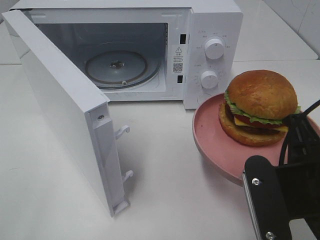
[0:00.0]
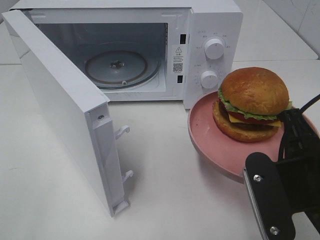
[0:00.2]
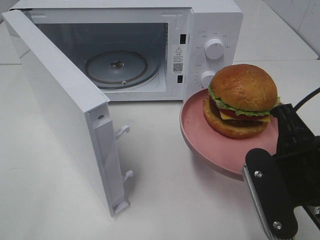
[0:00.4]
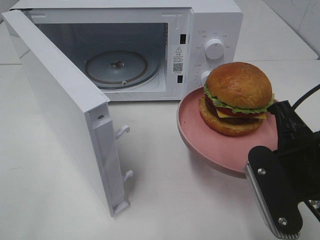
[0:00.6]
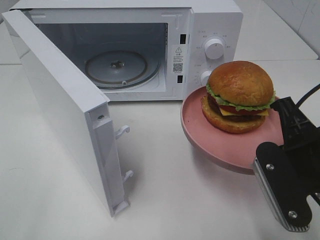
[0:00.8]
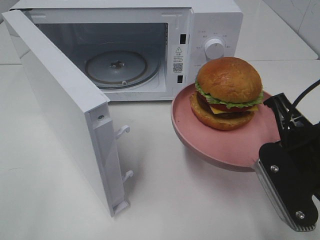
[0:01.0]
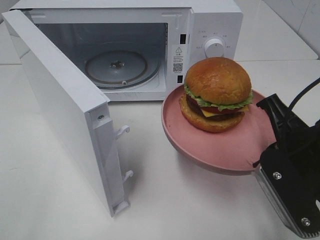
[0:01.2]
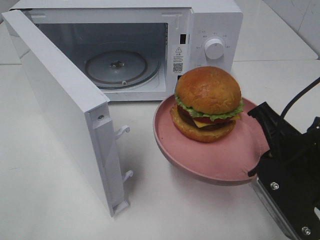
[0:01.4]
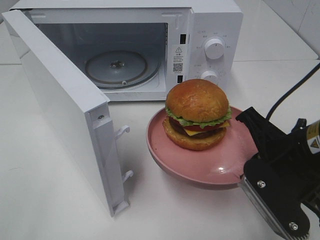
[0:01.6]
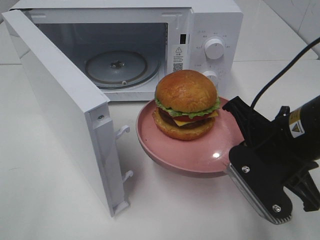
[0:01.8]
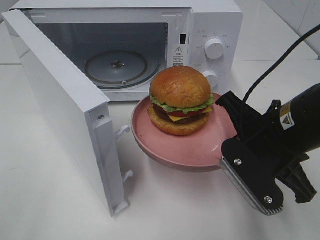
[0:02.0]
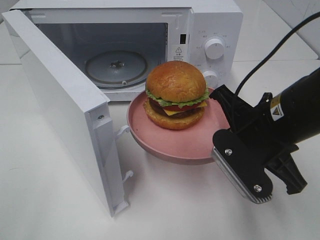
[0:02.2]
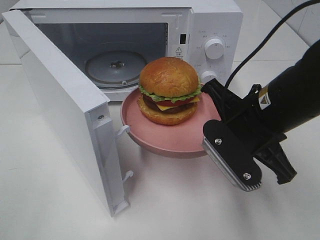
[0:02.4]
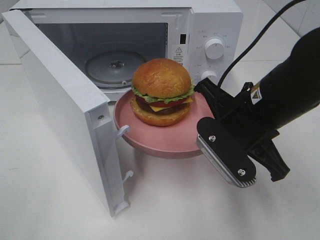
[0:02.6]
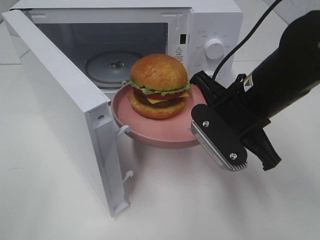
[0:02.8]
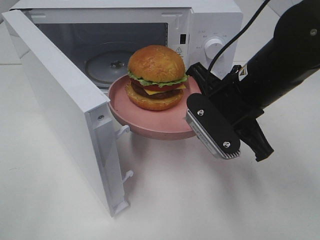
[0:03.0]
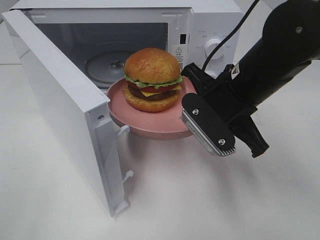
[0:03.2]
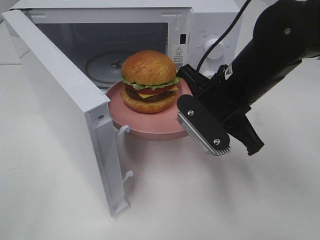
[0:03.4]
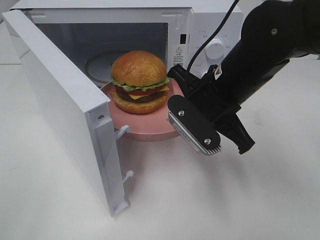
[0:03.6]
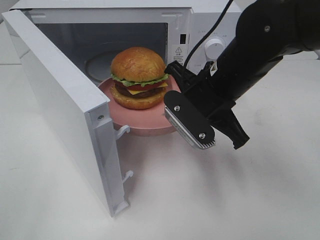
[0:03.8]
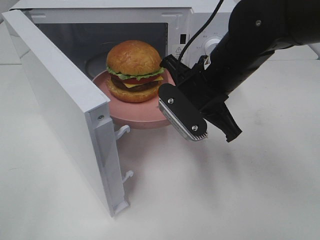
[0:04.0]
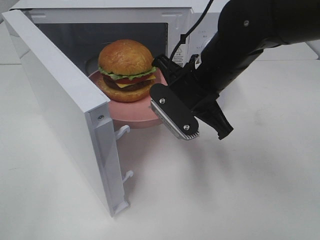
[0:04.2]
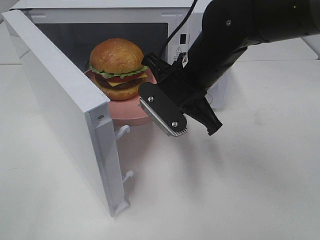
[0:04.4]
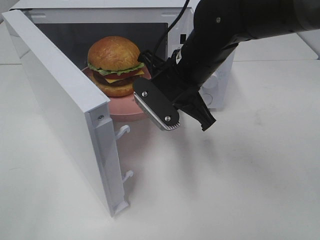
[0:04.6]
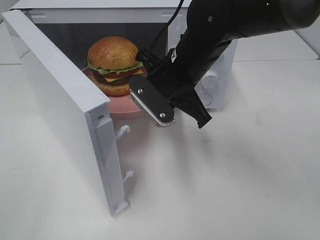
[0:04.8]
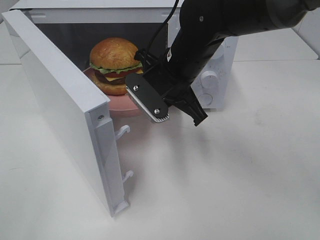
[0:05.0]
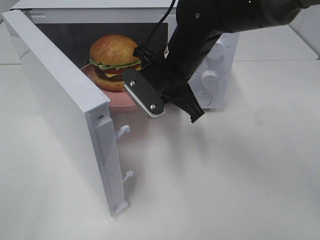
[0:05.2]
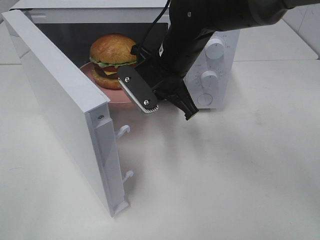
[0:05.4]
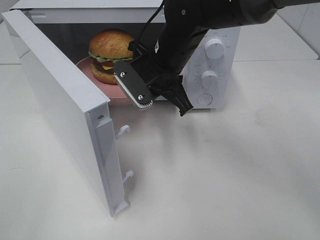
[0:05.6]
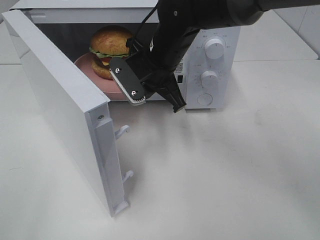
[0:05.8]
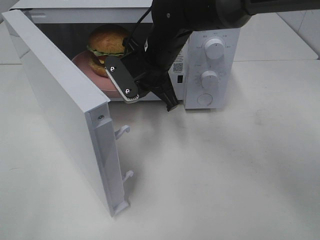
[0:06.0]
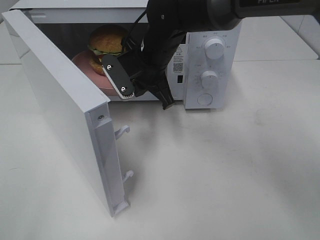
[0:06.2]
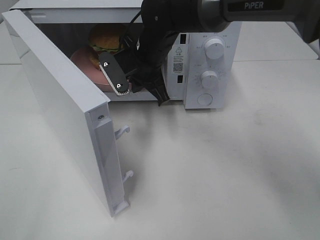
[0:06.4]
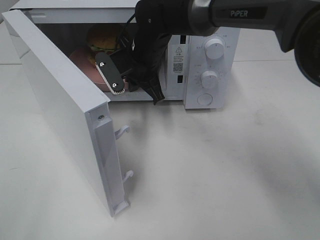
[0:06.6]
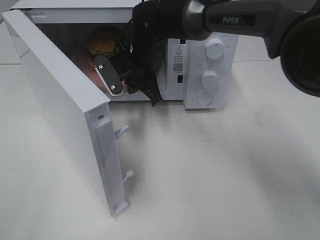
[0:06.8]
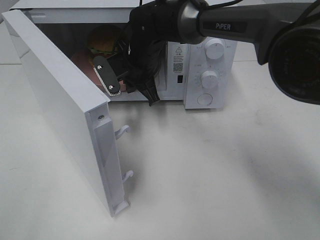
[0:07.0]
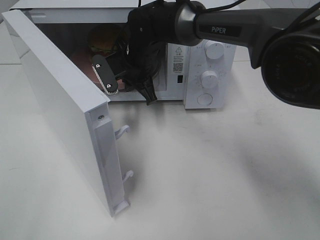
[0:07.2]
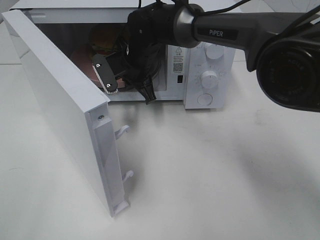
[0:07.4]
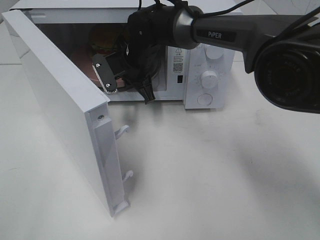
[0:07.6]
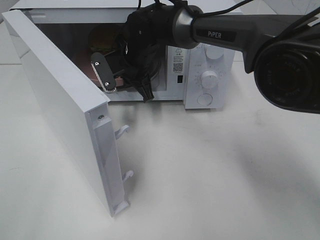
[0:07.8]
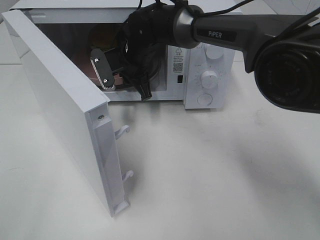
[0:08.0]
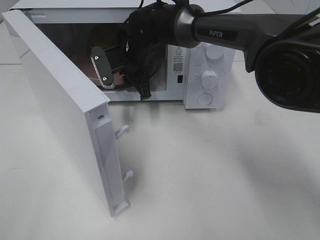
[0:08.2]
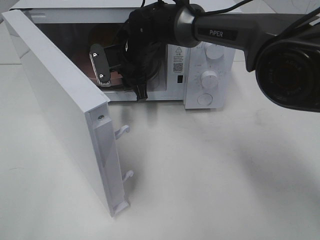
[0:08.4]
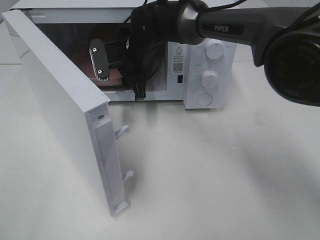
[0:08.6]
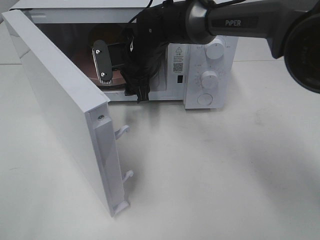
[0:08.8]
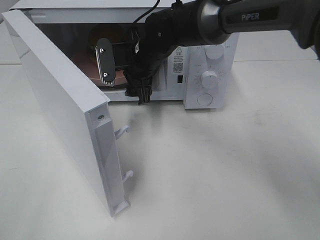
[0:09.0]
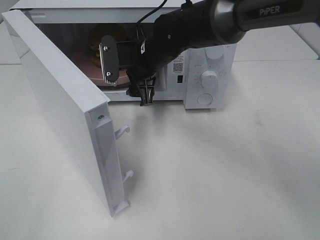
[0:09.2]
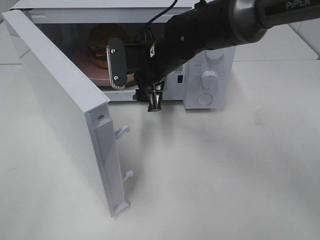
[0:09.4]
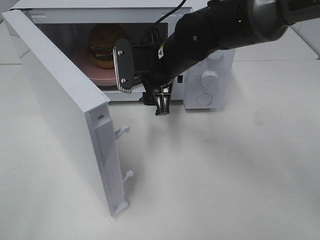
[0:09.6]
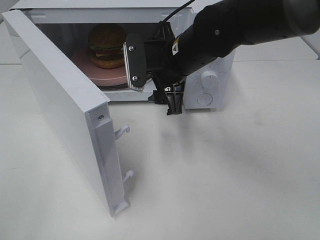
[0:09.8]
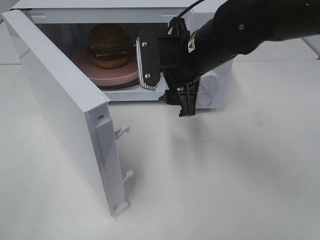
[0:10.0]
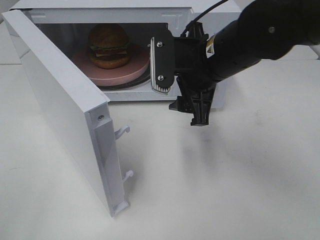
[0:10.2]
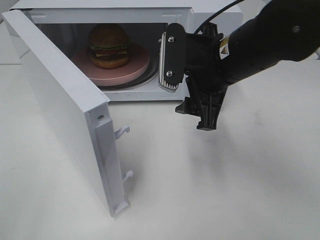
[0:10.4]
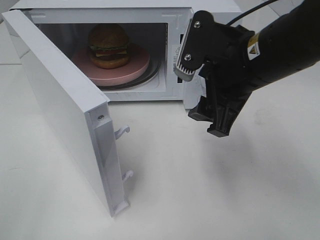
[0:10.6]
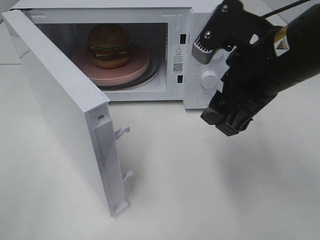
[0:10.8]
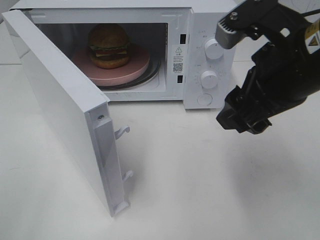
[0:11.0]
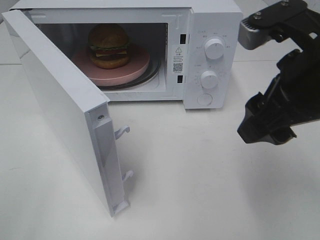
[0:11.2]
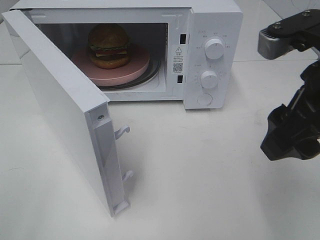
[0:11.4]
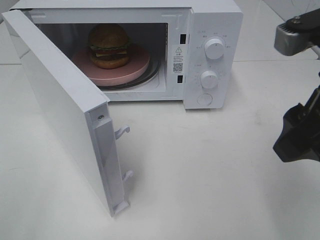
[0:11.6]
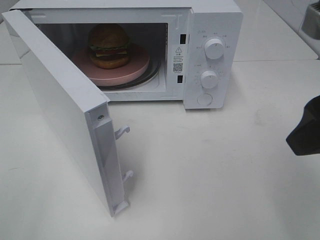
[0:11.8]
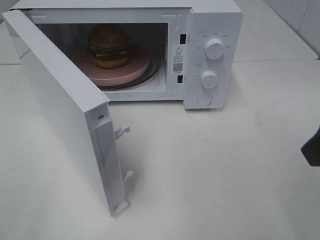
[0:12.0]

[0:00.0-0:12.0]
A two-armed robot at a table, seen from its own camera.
Task of the whole recording: Heat the burger.
Step, 0:00.0 to 0:08.8: Right hand: place the plate in the microwave.
0:00.0 to 0:01.6: The right gripper moves forward, roughly 5 cm.
0:01.6 to 0:03.0: The right gripper moves forward and to the left, some 10 cm.
0:03.0 to 0:04.4: The right gripper goes about 5 cm to the left.
0:04.4 to 0:06.0: The right gripper goes some 10 cm forward and to the left.
0:06.0 to 0:07.6: The right gripper heads forward, covering about 5 cm.
0:07.6 to 0:09.0: The right gripper opens.
0:09.0 to 0:10.4: The right gripper shifts approximately 20 cm backward, to the right and upward.
0:10.4 to 0:12.0: The right gripper shifts about 20 cm backward, to the right and upward.

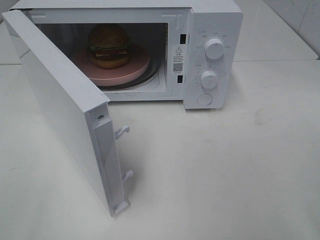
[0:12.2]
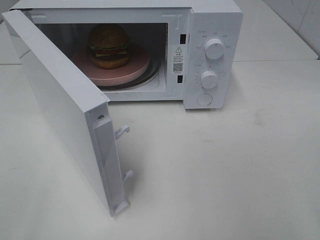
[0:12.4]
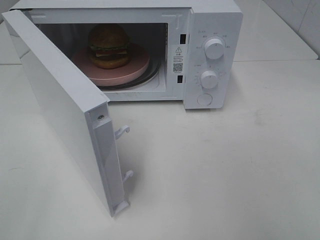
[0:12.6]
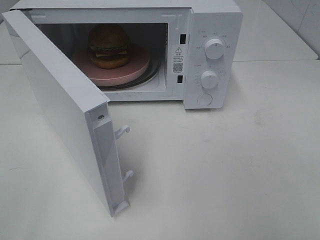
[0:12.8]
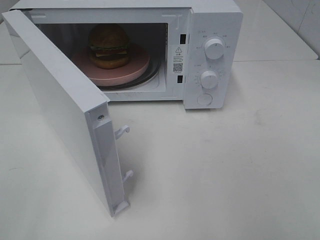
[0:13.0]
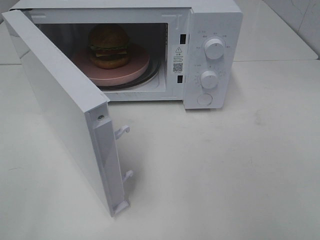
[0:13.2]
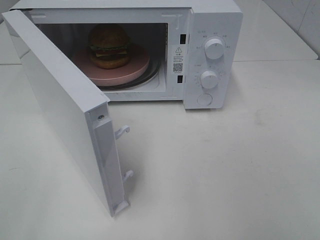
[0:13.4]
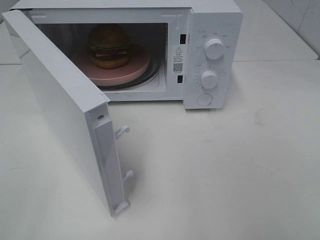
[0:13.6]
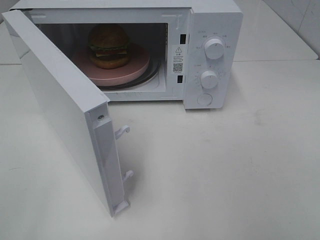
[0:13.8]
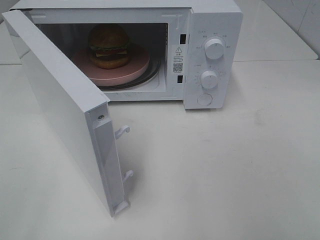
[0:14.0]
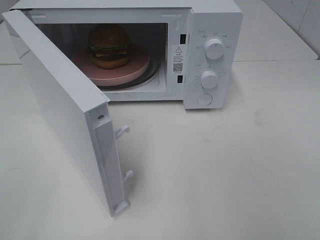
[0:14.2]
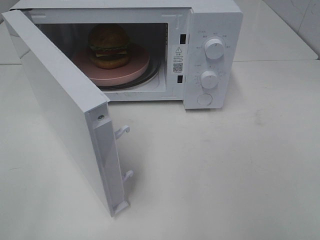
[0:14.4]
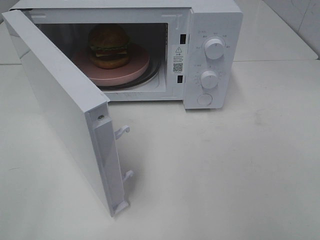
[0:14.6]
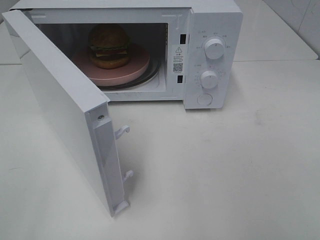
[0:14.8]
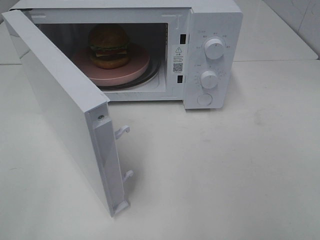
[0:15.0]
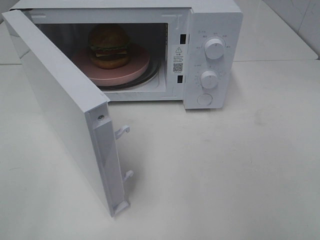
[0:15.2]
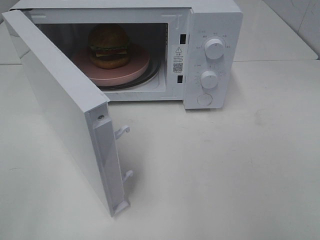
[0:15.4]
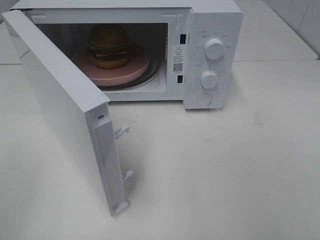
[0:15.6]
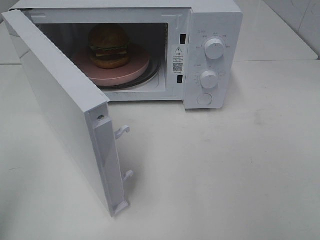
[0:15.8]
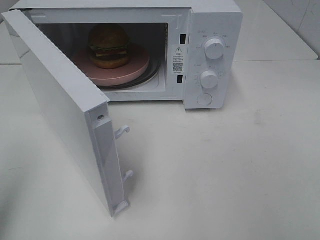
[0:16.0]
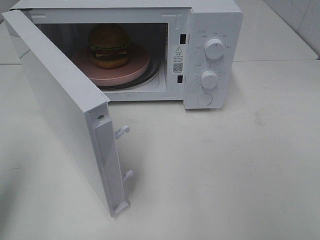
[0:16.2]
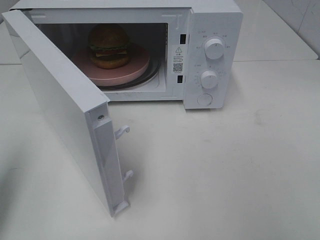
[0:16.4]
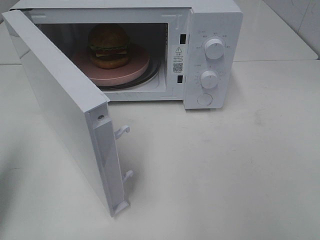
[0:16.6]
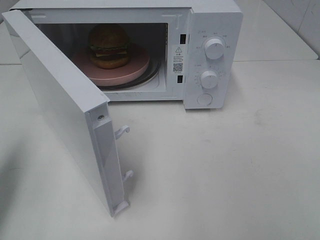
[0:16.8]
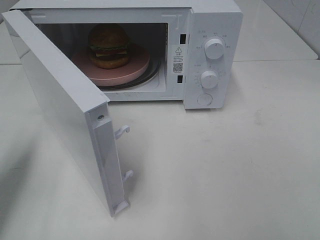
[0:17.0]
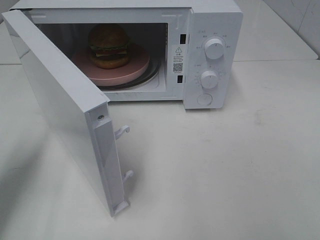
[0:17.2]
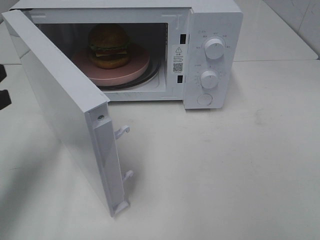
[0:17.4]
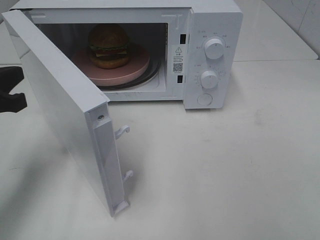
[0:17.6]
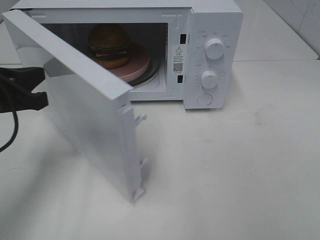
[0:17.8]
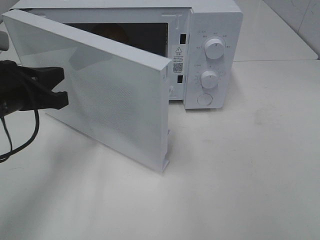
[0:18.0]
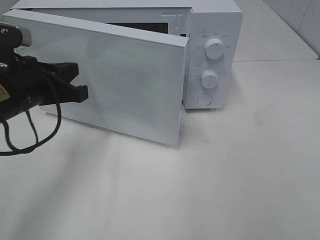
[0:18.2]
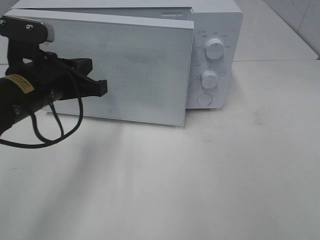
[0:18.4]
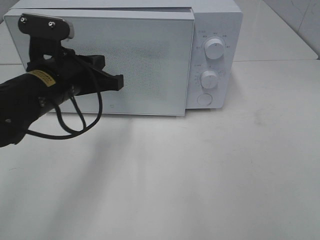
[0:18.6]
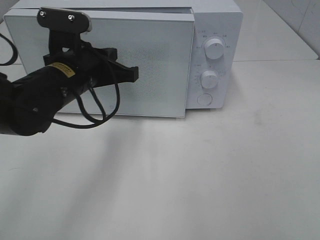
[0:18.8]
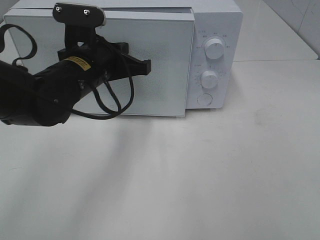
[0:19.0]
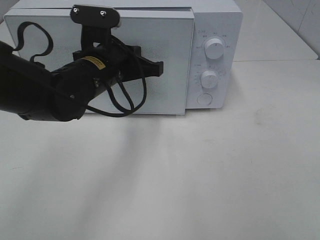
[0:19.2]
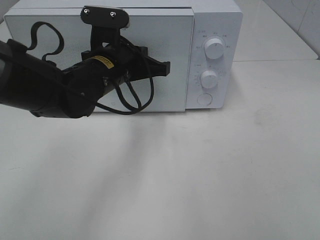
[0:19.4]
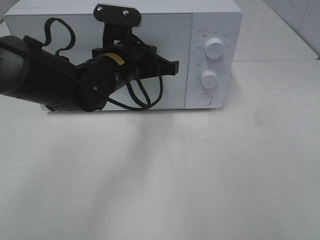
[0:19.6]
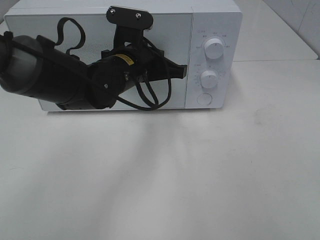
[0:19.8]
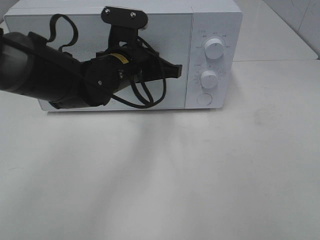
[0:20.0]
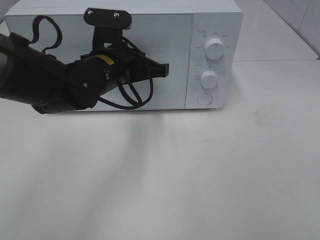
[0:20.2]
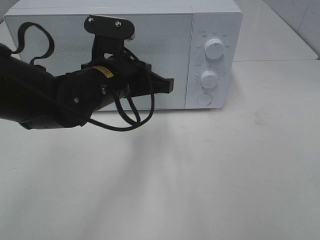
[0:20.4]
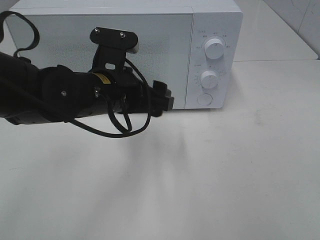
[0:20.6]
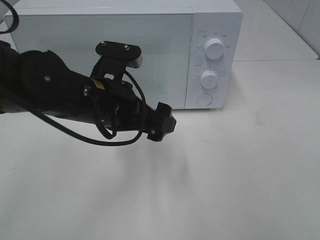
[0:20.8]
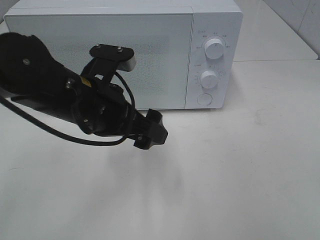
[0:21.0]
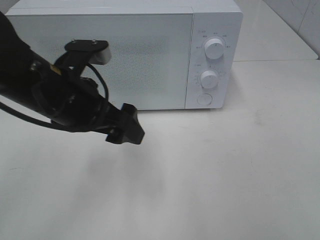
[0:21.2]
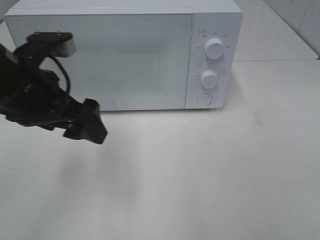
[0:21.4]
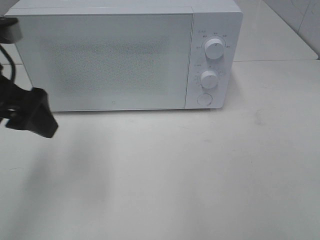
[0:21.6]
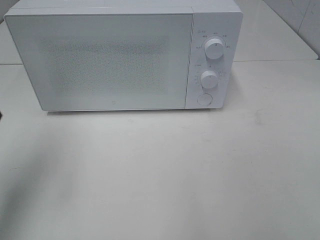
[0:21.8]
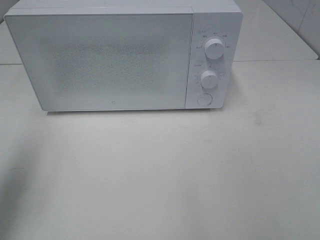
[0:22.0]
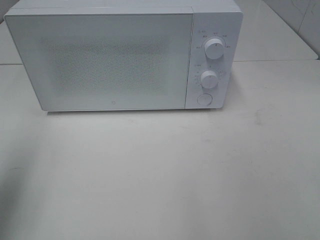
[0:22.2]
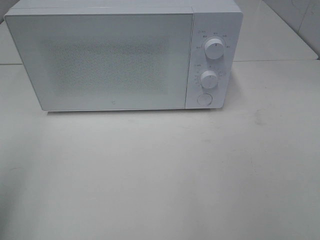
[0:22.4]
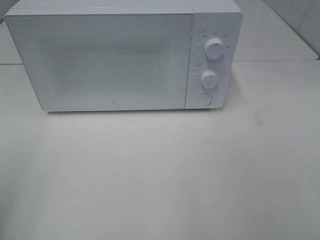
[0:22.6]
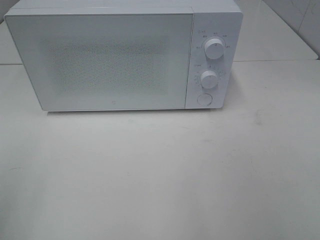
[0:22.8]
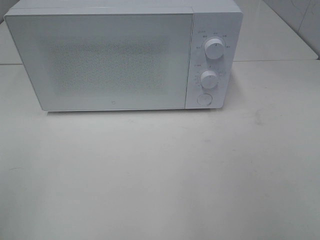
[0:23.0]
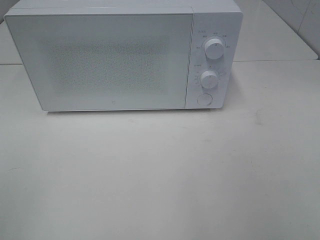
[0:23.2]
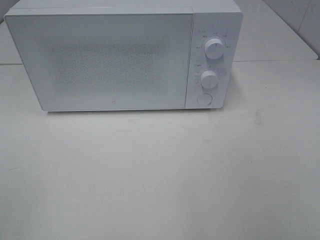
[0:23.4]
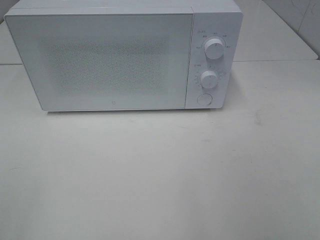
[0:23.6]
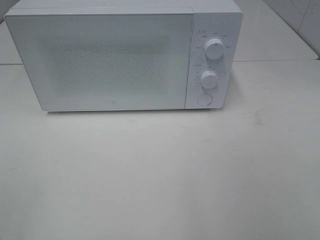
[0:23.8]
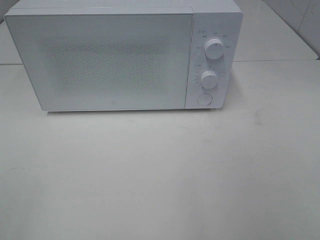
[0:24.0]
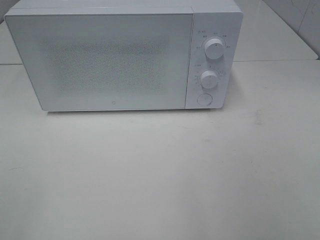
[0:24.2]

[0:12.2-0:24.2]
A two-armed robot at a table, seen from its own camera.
Task of the whole recording: Heat the burger.
Step, 0:12.2 to 0:20.4: Left hand: close the microwave door.
0:13.8 to 0:15.2: The two grippers keep their place.
0:15.2 to 0:16.6: The left gripper is displaced forward by approximately 15 cm, and closes up.
0:16.6 to 0:18.2: The left gripper goes approximately 20 cm to the right, forward and downward.
0:18.2 to 0:19.8: The left gripper travels to the right and forward by about 15 cm.
0:19.8 to 0:21.2: The left gripper goes some 15 cm backward and to the left, and opens its fingers.
0:21.2 to 0:22.6: The left gripper heads to the left and backward, covering roughly 25 cm.
